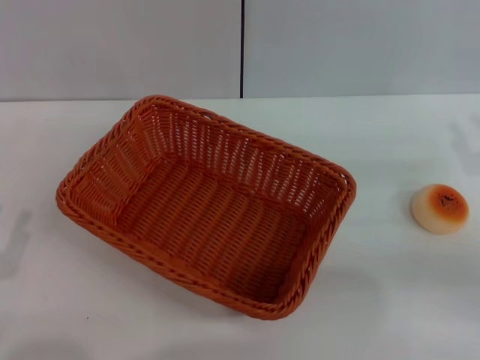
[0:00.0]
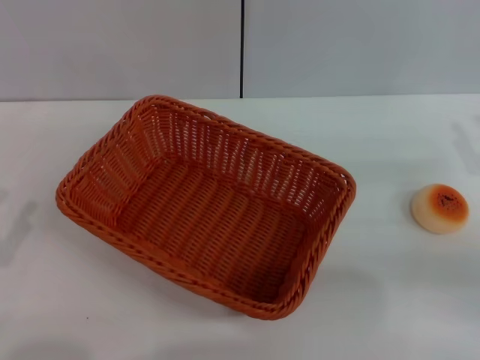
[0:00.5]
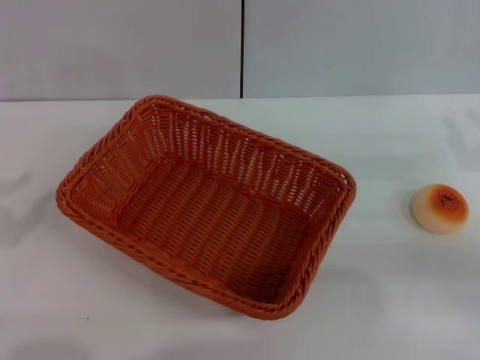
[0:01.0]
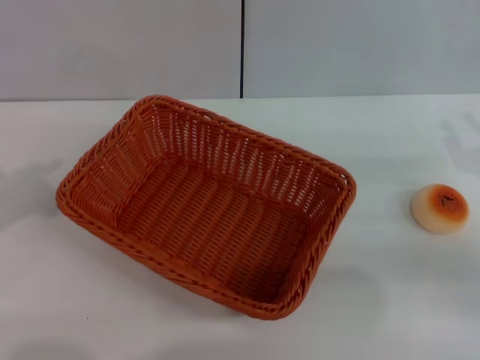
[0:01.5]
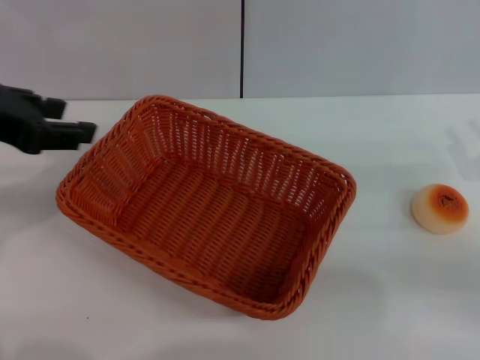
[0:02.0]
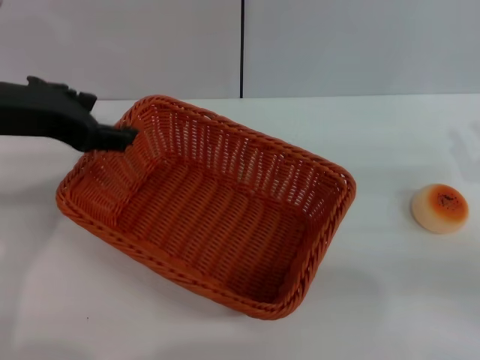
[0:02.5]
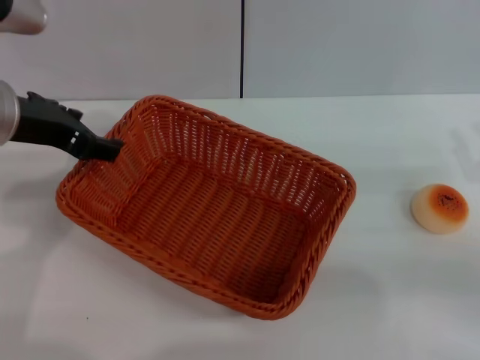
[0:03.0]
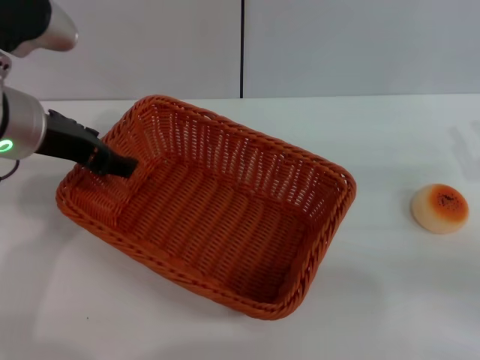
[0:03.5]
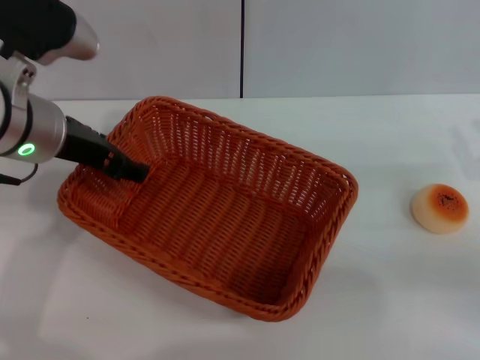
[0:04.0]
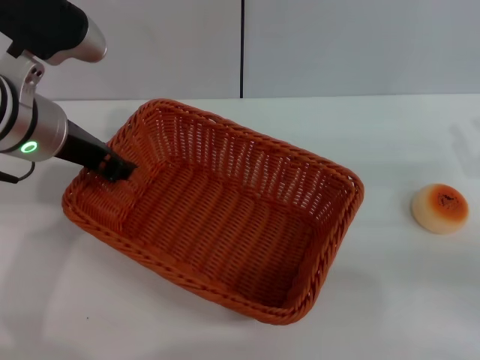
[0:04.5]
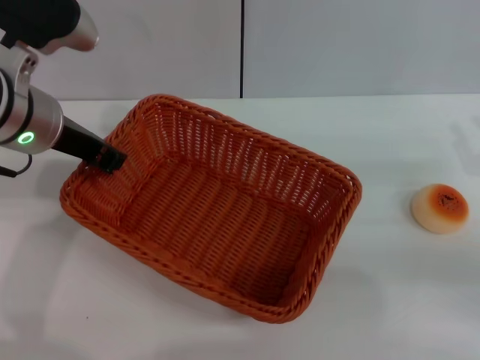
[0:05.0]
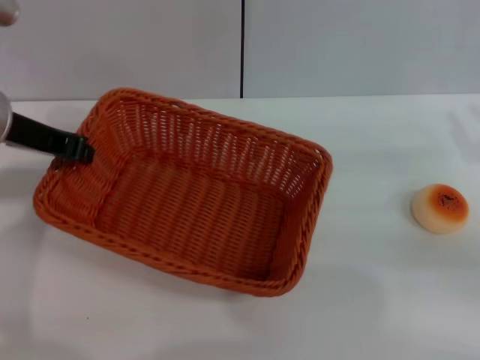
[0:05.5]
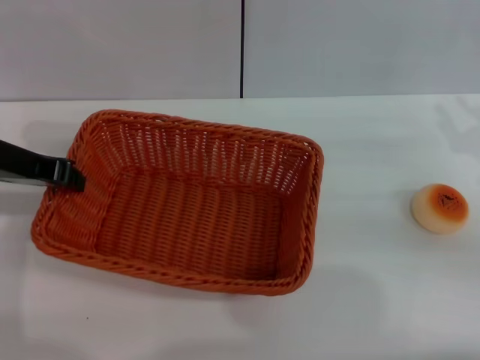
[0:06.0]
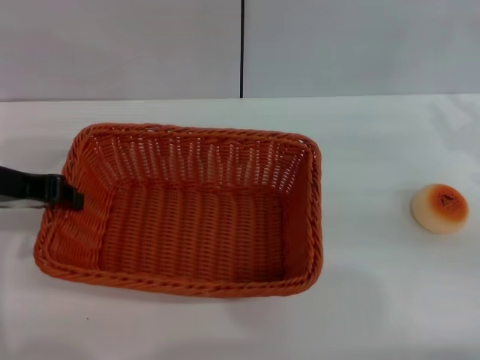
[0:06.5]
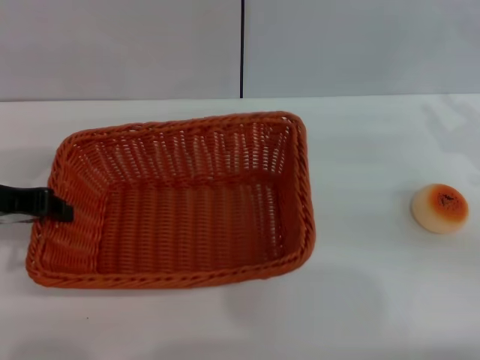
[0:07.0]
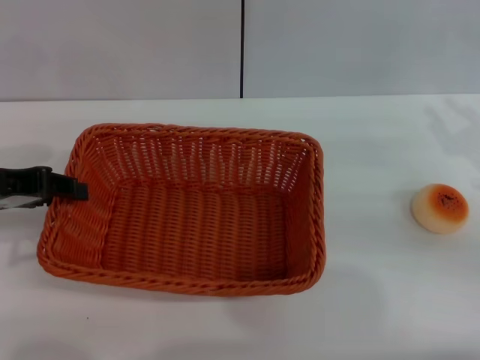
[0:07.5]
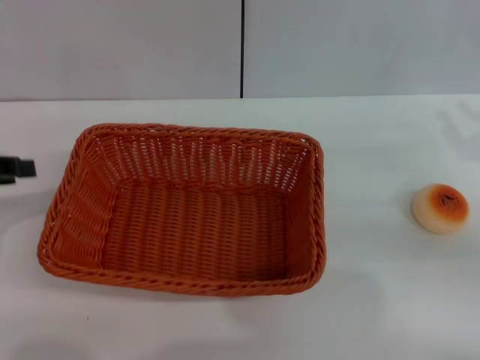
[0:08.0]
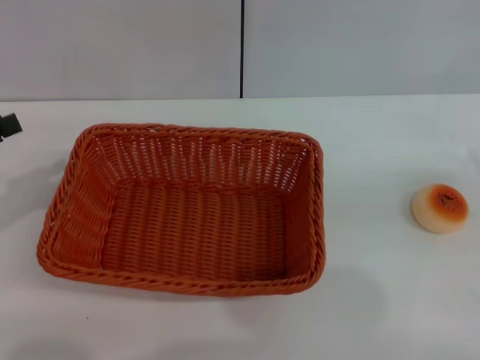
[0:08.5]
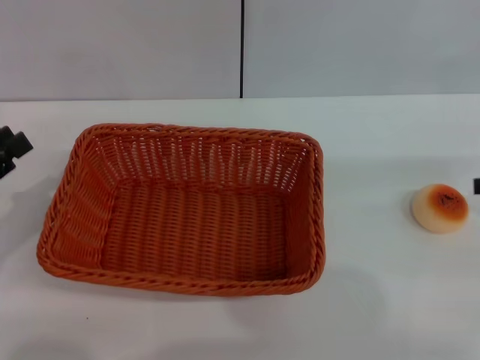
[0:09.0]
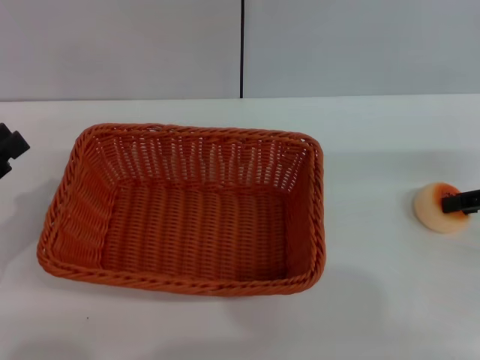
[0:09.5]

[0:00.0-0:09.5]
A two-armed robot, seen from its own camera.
Step, 0:00.0 to 0:07.5: Move the basket to the center of view with the left gripper.
0:00.0 to 0:02.0: The left gripper moves upward and forward, approximately 25 cm.
0:02.0 to 0:04.0: The left gripper moves downward, to the right and forward, some 10 cm.
0:04.0 to 0:05.5: The left gripper closes.
0:05.5 to 0:07.5: The left gripper is displaced to the left and backward by about 5 cm.
0:07.5 to 0:09.5: The left gripper shifts some 15 cm backward, downward and to the left.

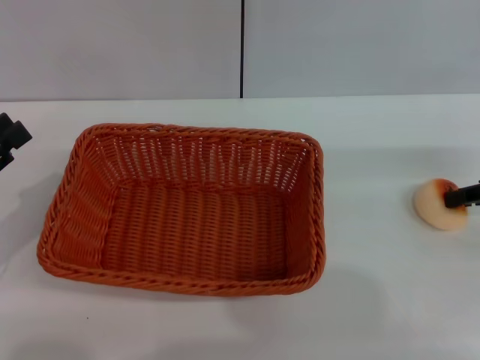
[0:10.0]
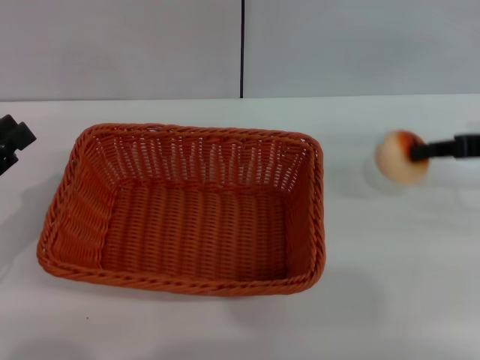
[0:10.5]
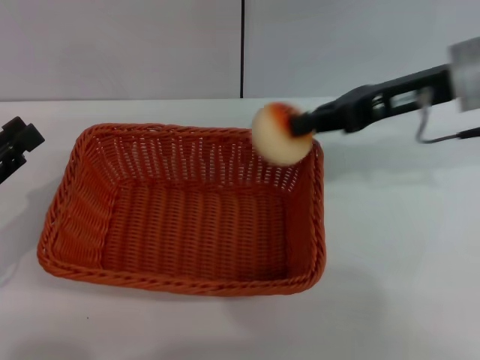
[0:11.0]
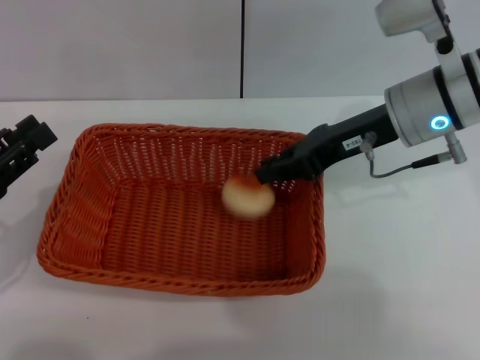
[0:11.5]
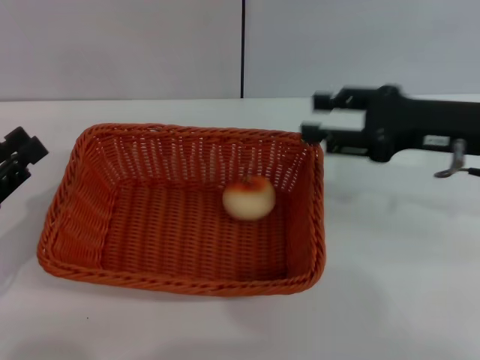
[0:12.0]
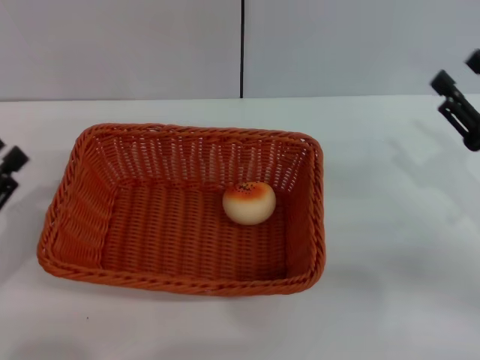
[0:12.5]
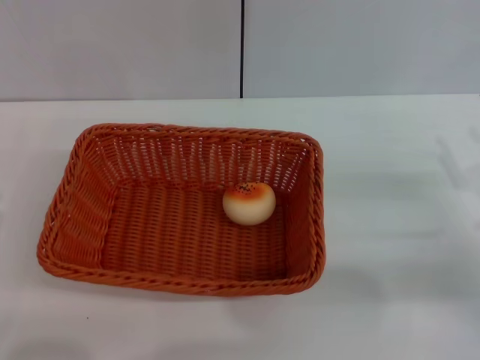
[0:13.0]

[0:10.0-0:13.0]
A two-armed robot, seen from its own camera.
Step, 0:11.0 to 0:11.5: Place the egg yolk pastry into the basket with the right gripper.
0:10.0 to 0:11.5: The right gripper is displaced to the left by roughly 20 cm, and closes.
0:11.5 to 0:13.0: The left gripper goes some 5 cm backward. Meanwhile the right gripper travels to the right, backward and downward by about 25 cm, and opens.

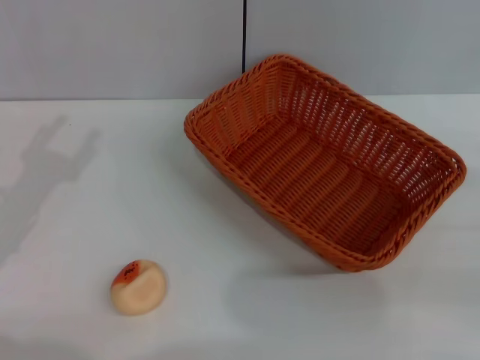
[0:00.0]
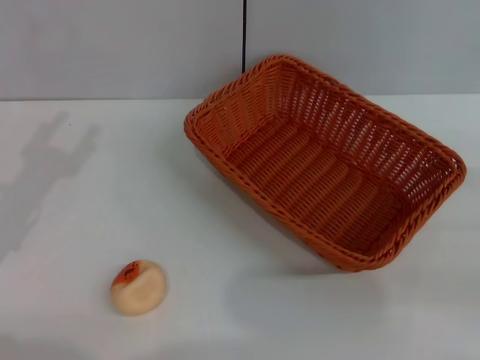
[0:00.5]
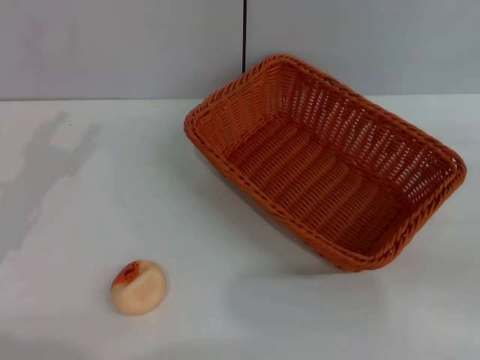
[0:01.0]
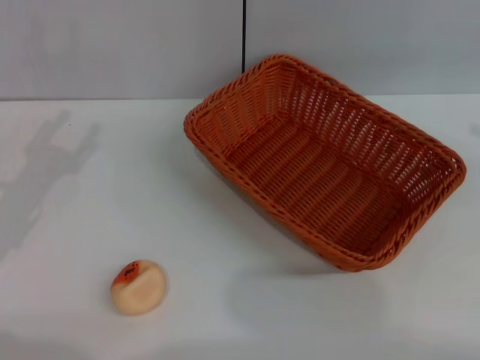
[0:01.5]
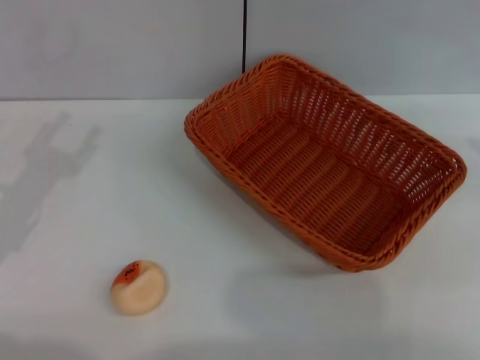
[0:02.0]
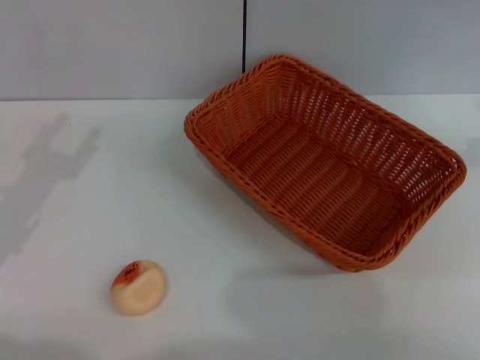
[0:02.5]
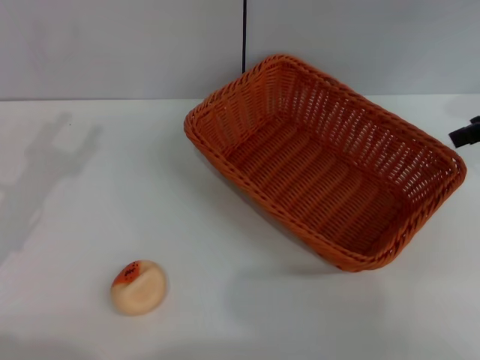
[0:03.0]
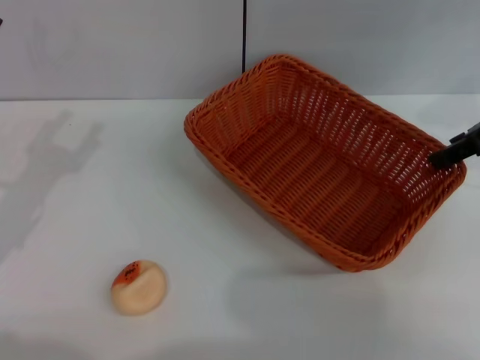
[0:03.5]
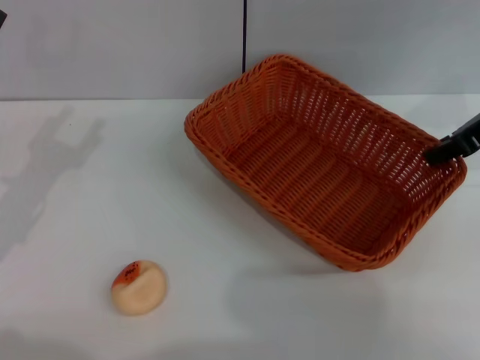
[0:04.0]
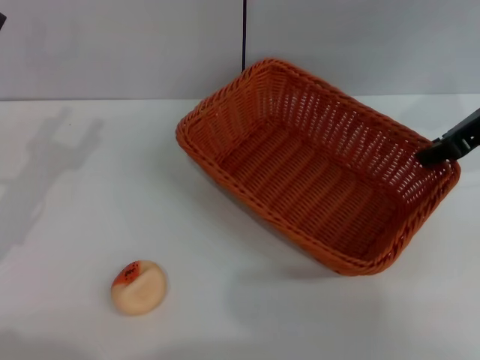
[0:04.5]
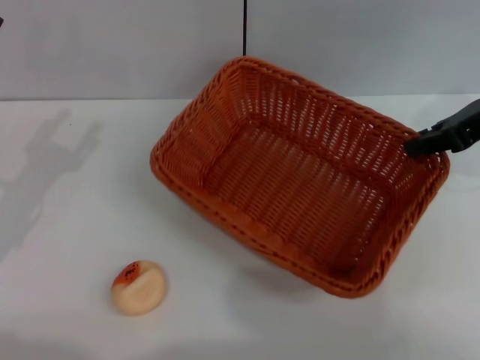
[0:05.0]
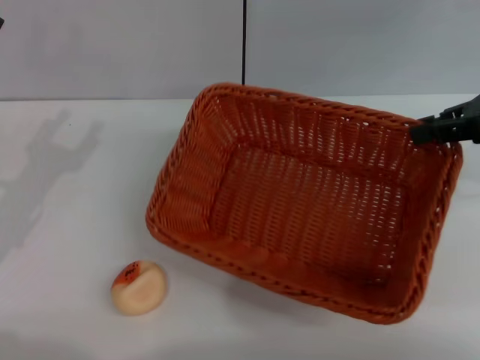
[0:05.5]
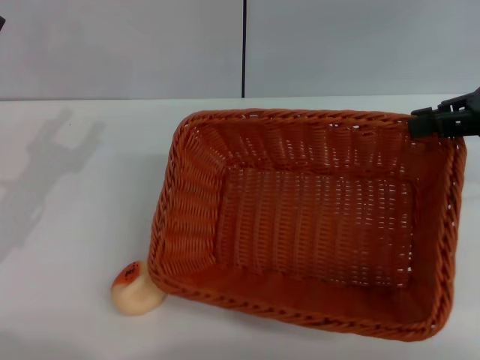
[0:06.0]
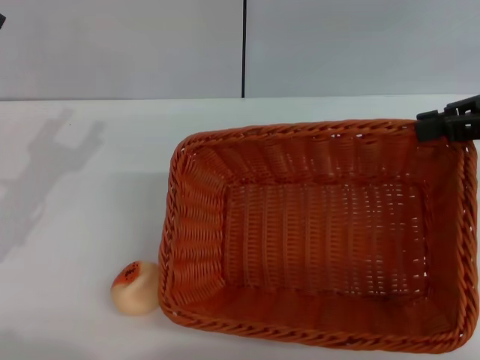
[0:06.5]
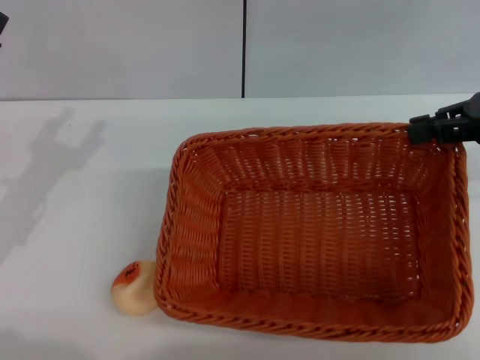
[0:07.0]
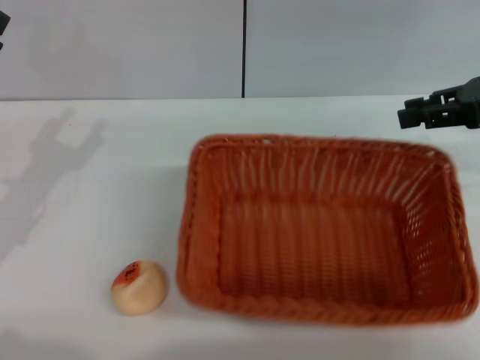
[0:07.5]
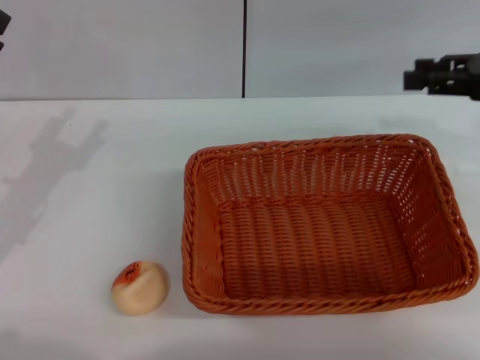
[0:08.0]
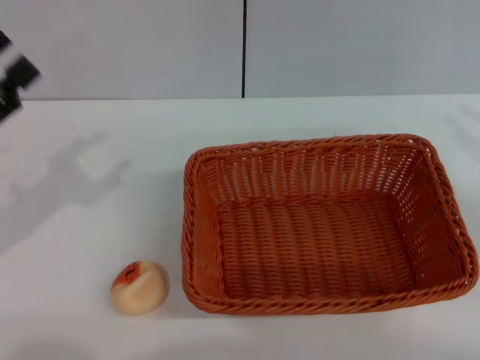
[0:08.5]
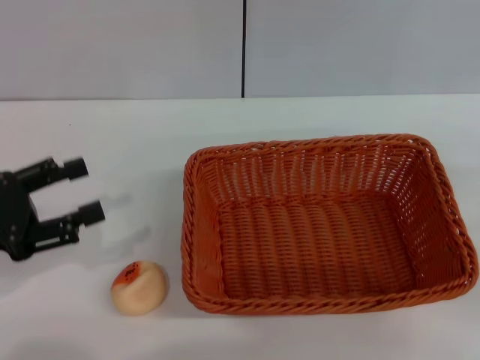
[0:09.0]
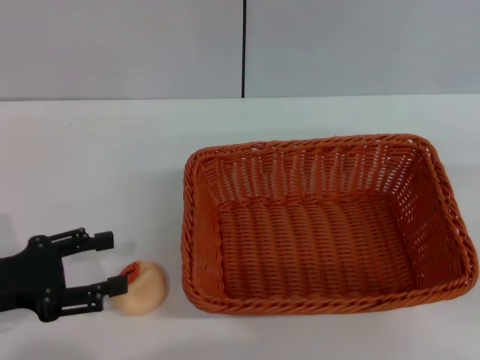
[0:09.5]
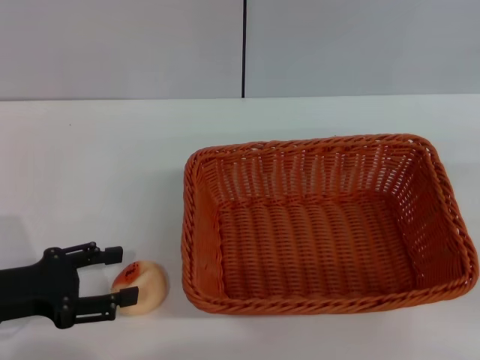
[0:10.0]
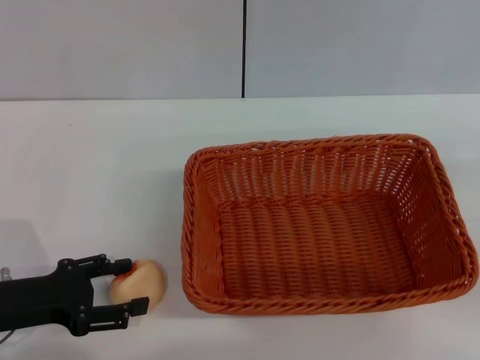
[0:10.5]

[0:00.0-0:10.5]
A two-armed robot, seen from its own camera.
Step, 0:00.0 to 0:07.5: Move the basket to the center of view with the right gripper.
0:02.0 to 0:04.0: The right gripper travels to the left and downward by about 15 cm, and closes.
0:04.0 to 0:06.5: The right gripper ends up approximately 5 cm from where it was, and closes its fingers.
0:06.5 to 0:08.5: The right gripper travels downward, to the right and backward by about 10 cm, and opens.
0:08.5 to 0:10.5: The left gripper moves downward, approximately 10 cm.

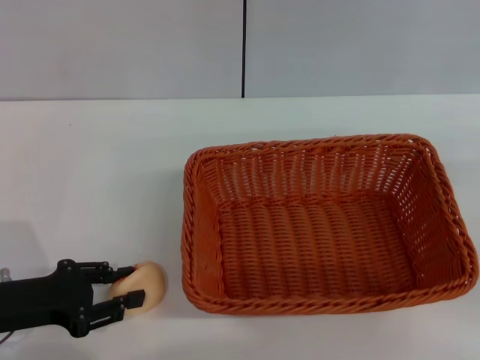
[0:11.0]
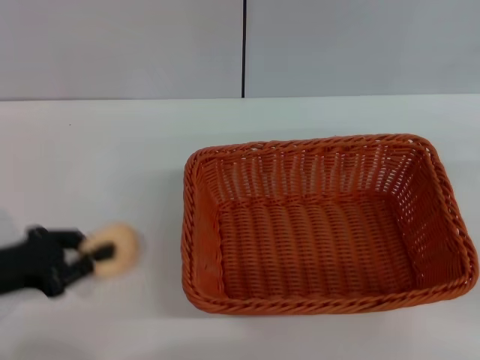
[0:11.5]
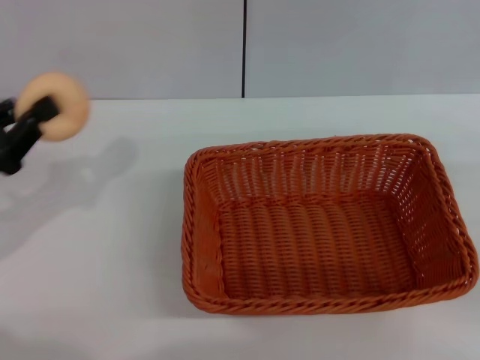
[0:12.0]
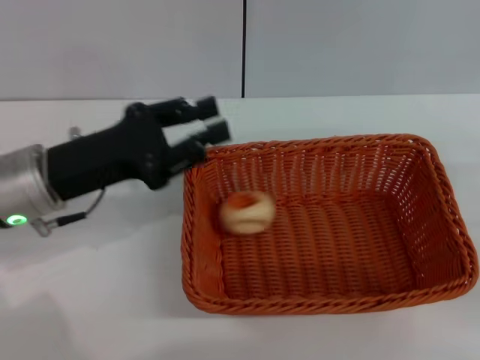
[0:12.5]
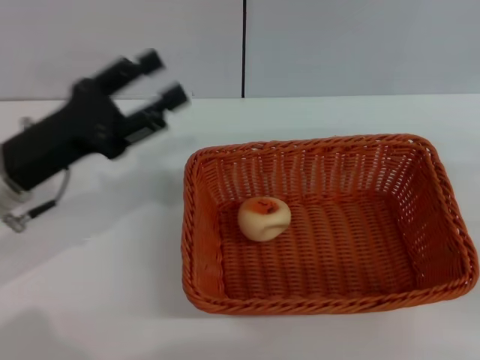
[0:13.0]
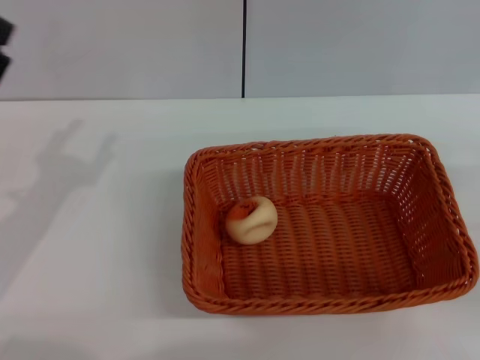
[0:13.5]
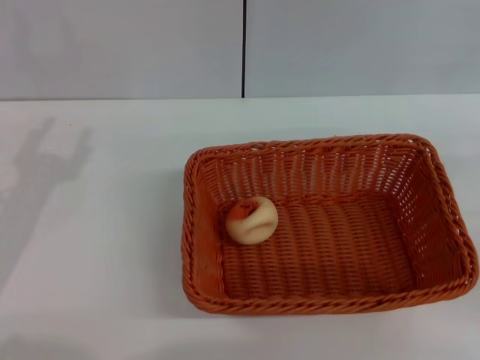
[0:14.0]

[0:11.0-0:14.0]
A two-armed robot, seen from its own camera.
Step, 0:12.0 to 0:12.5: Place the egg yolk pastry into the basket with the left gripper.
0:11.0 to 0:12.5: The left gripper is displaced to the right, forward and upward by about 15 cm, and closes up.
0:12.5 to 0:14.0: The left gripper is displaced to the left and backward by about 10 cm, and opens.
